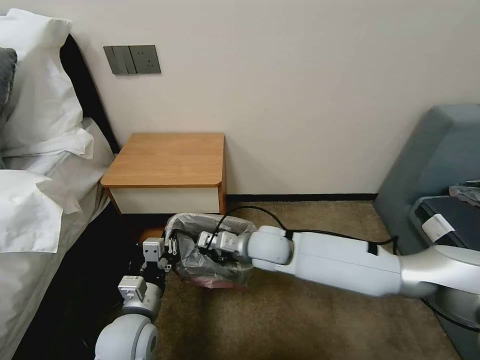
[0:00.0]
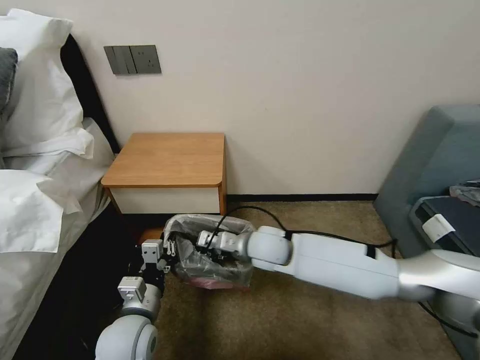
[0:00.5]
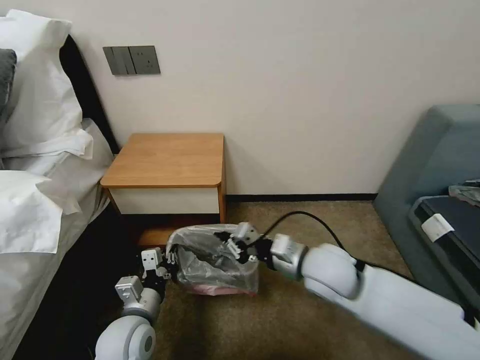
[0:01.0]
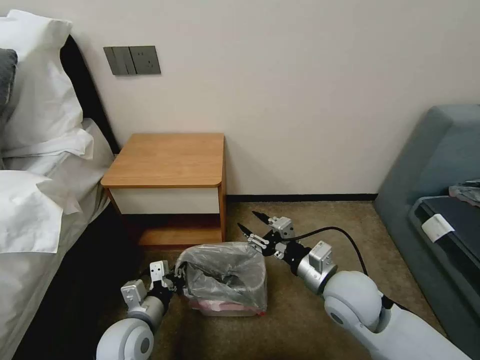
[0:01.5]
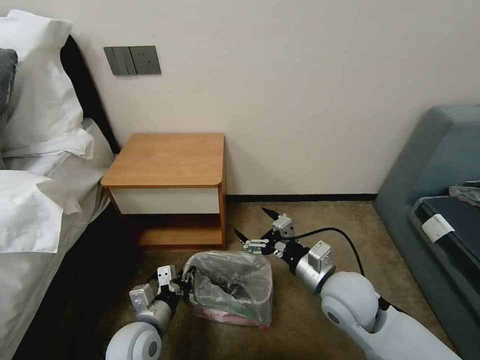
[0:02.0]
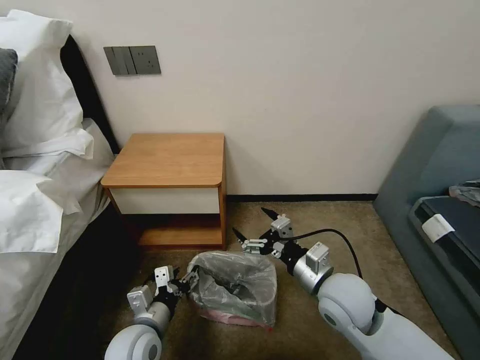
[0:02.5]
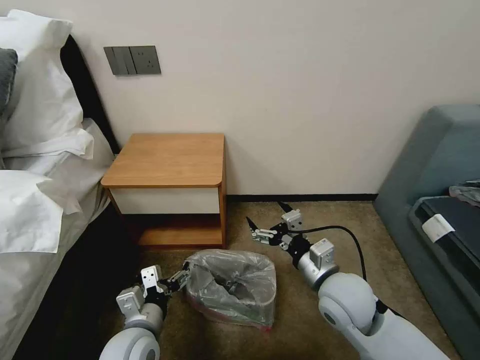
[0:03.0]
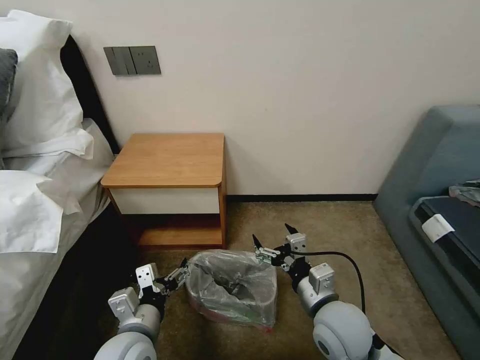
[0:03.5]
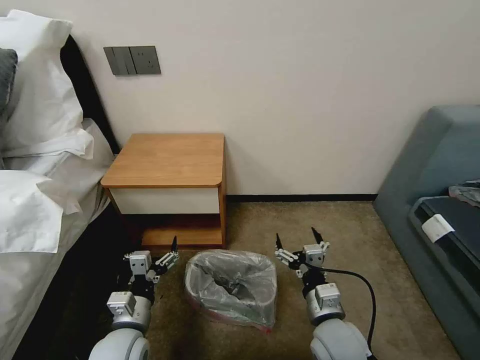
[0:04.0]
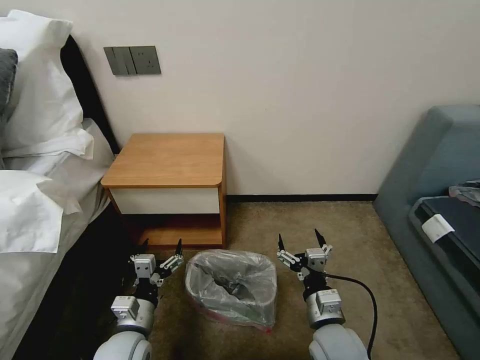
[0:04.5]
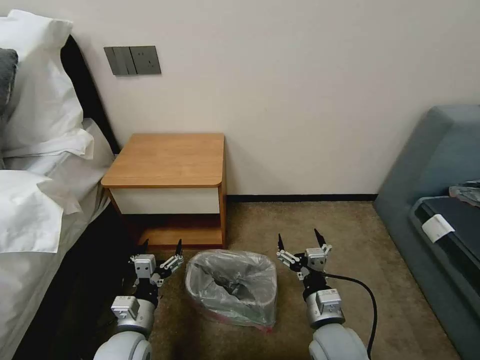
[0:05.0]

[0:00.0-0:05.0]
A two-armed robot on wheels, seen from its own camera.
Task of the whole recording: Pick up the garbage bag from the table and place it over the trash can.
0:00.0 to 0:02.5: The right gripper goes approximately 20 cm to the right and backward, and opens up. The left gripper opens.
0:02.5 to 0:05.0: The right gripper moves downward and backward, some 10 cm.

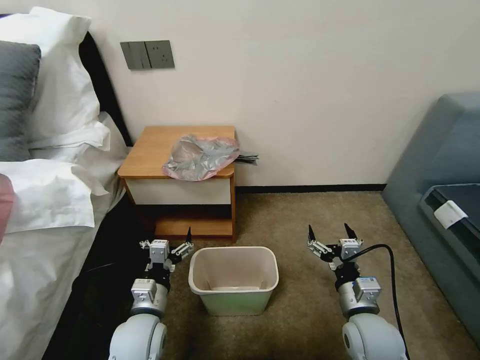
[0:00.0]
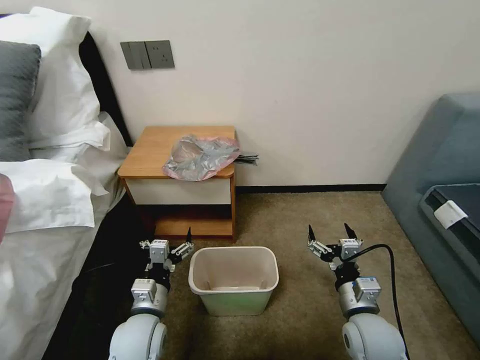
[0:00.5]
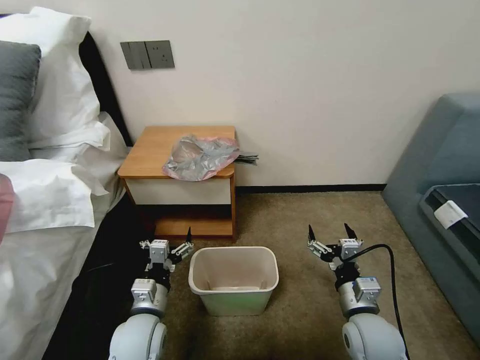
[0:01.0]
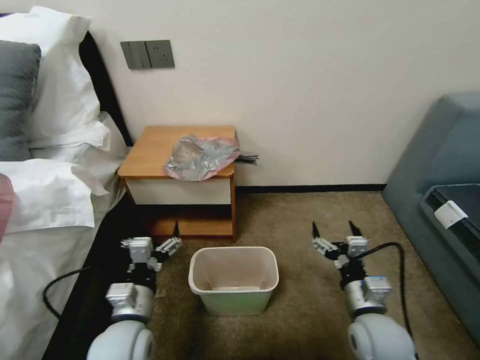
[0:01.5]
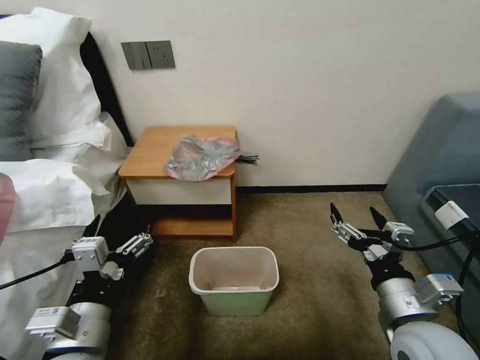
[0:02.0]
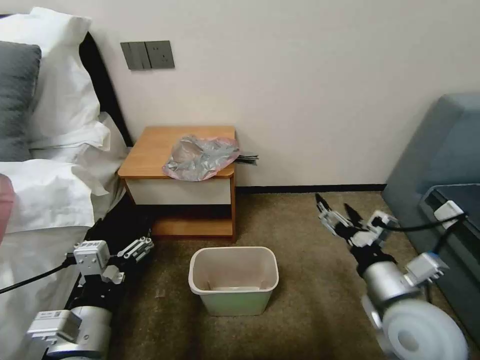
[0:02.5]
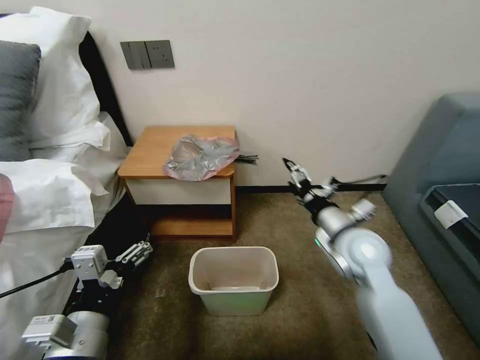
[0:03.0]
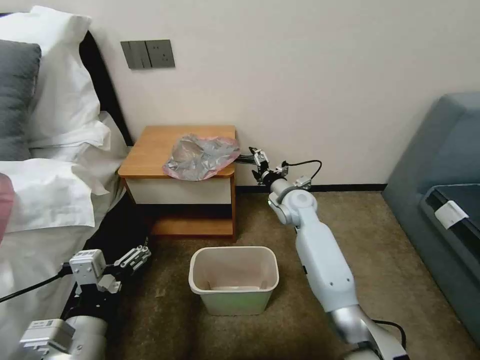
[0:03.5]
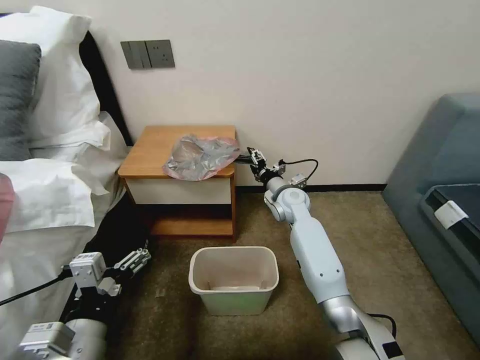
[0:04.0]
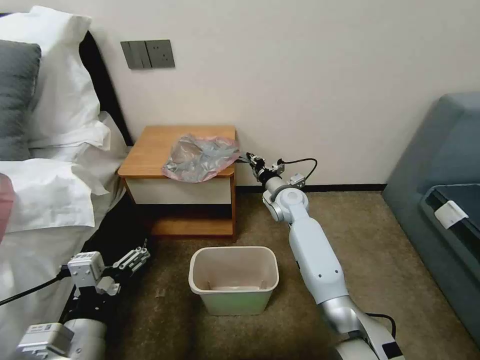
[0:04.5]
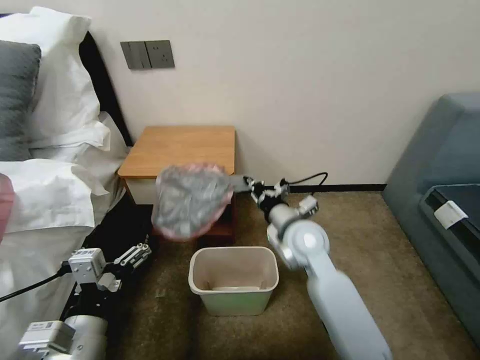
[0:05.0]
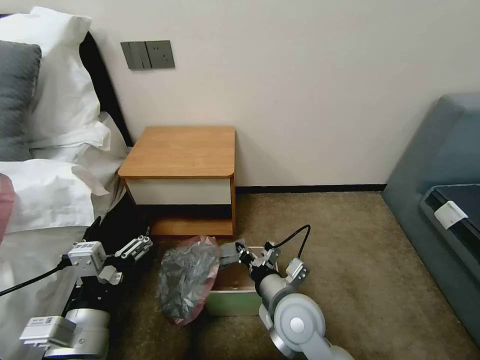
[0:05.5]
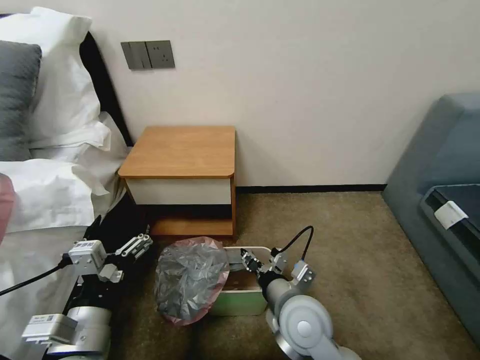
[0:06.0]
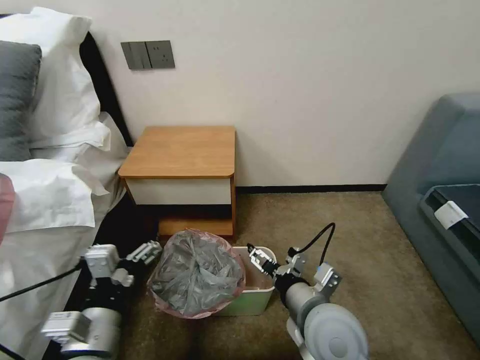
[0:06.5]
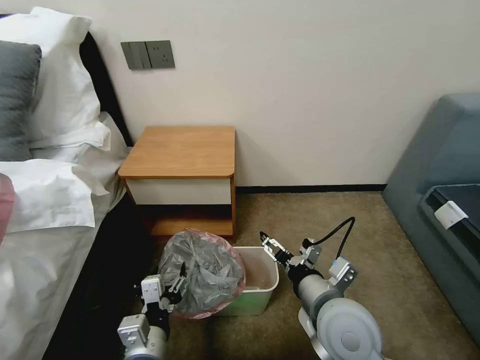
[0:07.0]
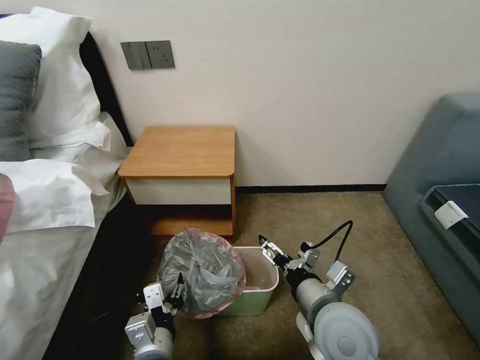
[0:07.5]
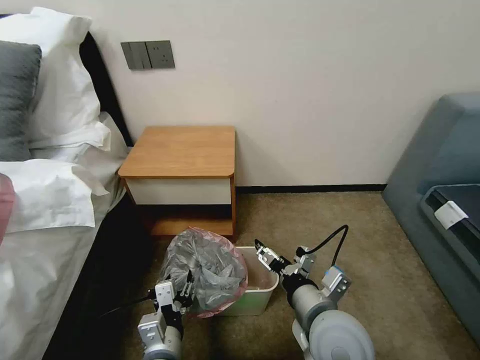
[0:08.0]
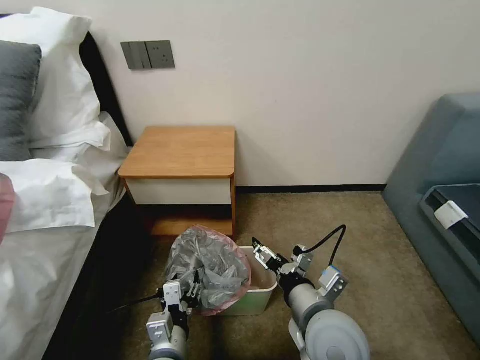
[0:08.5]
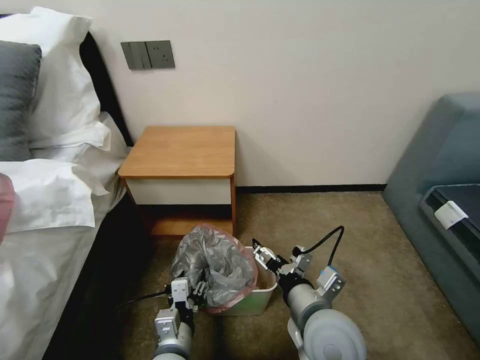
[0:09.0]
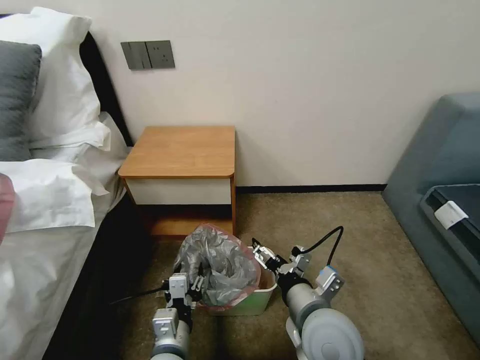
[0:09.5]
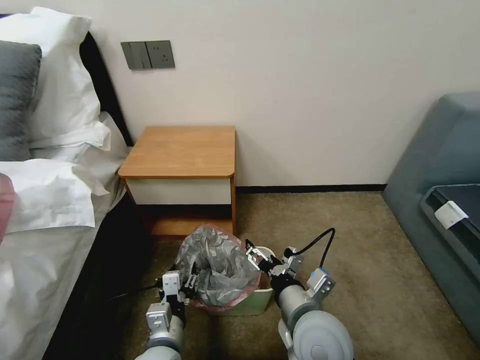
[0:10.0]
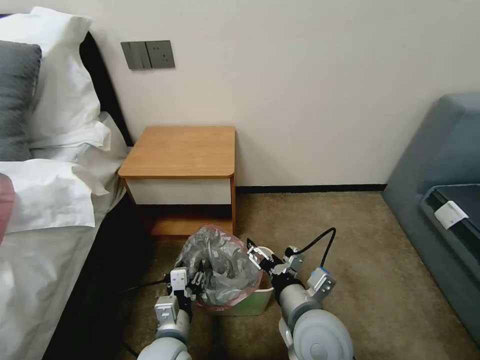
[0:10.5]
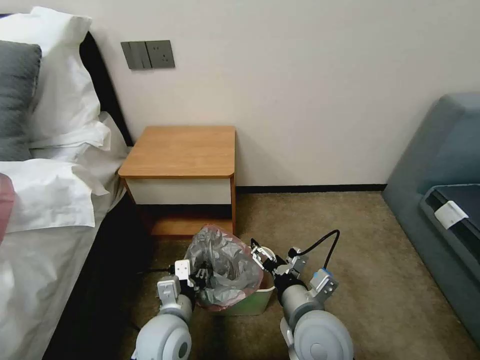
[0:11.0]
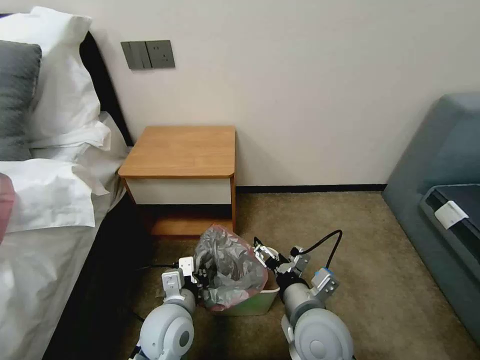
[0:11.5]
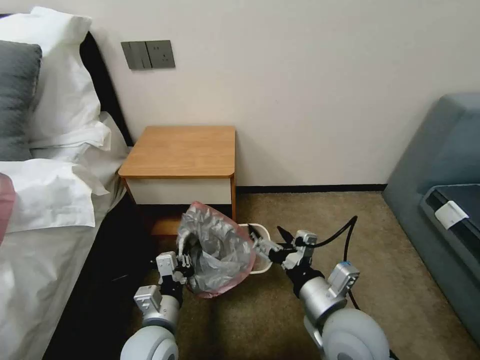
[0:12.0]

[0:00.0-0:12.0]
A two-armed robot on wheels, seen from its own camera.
Task of the whole recording: Pick up the garbage bag from the table and place it over the trash can.
0:02.0 to 0:04.0: The right gripper shifts approximately 35 cm forward.
0:04.0 to 0:06.0: The right gripper shifts roughly 30 cm backward, and closes, then reopens.
0:06.0 to 0:08.0: The left gripper heads downward and to the right, covering approximately 15 cm, and closes its fingers, while the right gripper ends up roughly 5 cm from where it was, and opens.
0:08.0 to 0:10.0: The grippers stay close to where they were, moving slightly.
0:10.0 to 0:12.0: The left gripper closes its fingers, while the right gripper ends up some 5 cm from where it was.

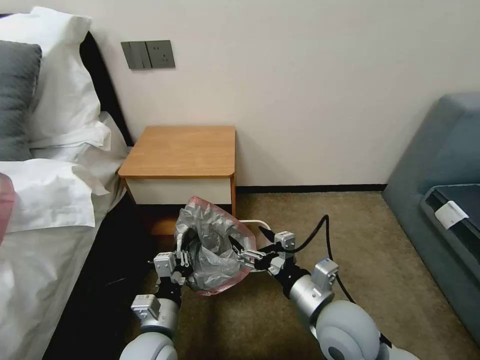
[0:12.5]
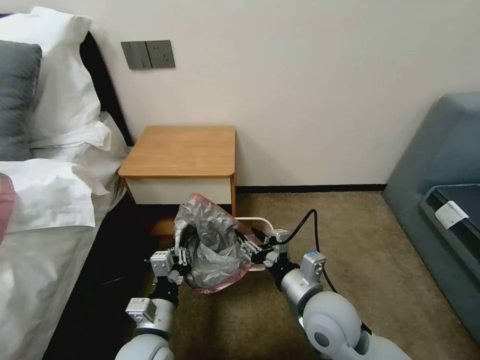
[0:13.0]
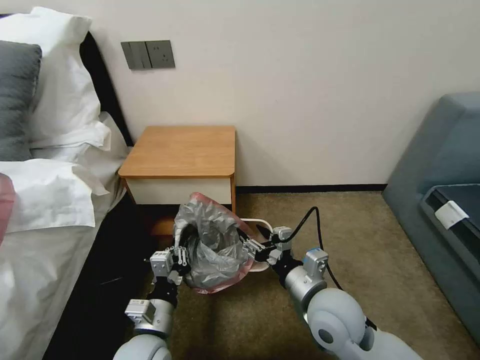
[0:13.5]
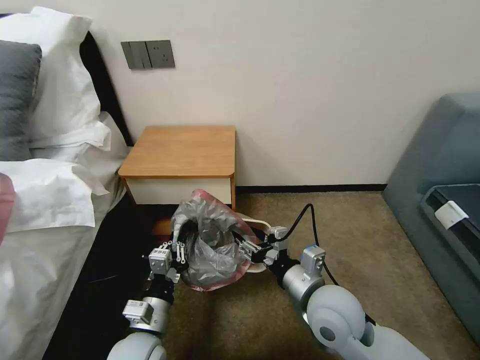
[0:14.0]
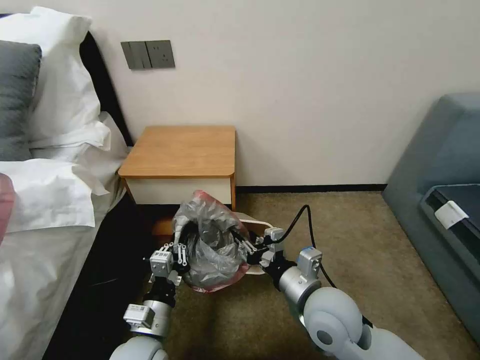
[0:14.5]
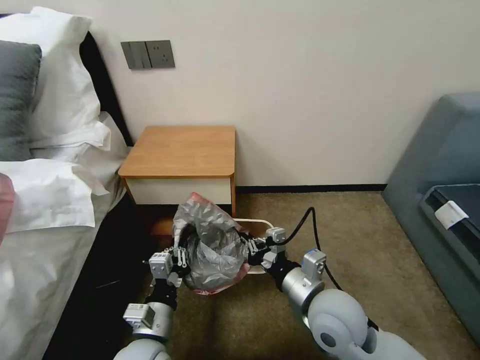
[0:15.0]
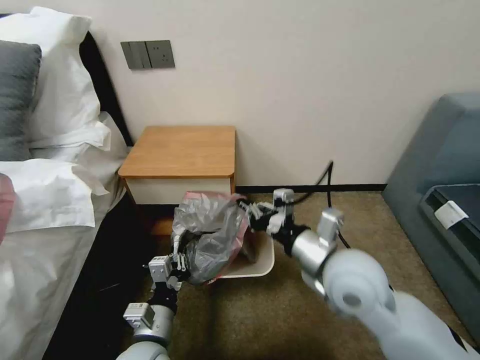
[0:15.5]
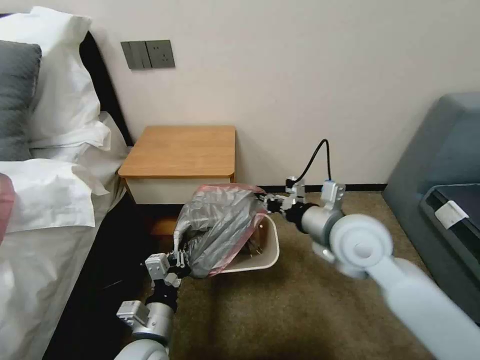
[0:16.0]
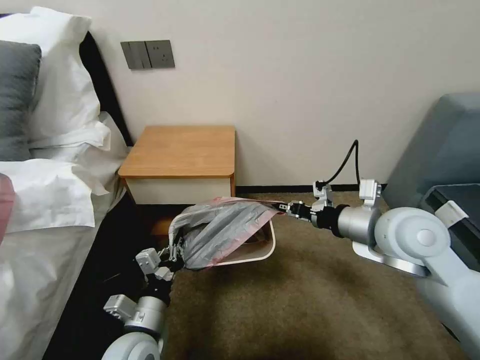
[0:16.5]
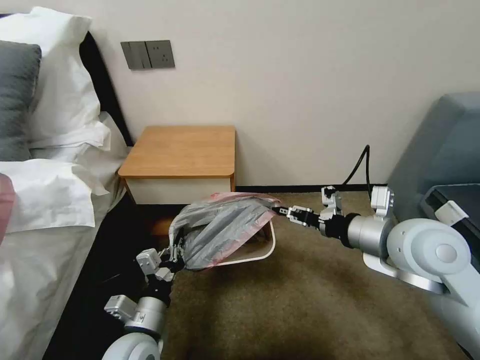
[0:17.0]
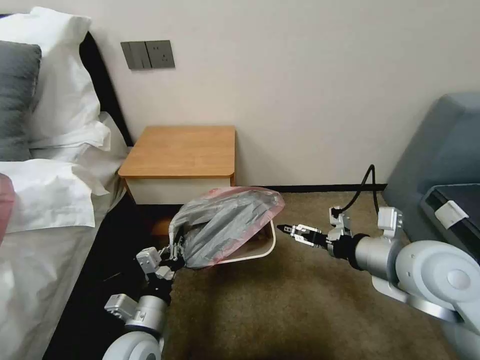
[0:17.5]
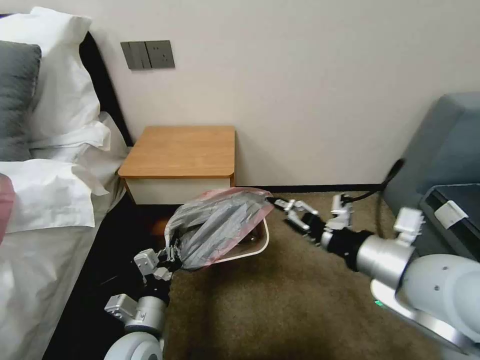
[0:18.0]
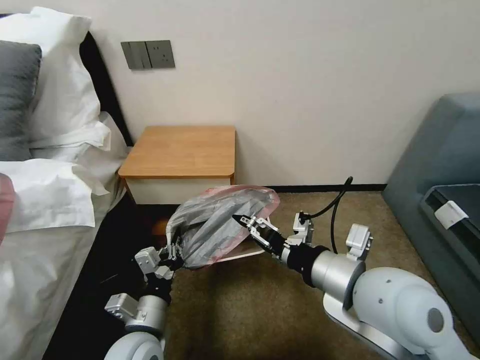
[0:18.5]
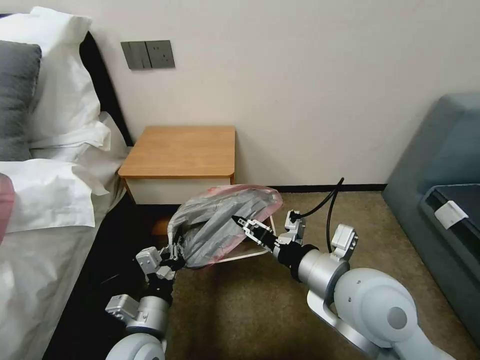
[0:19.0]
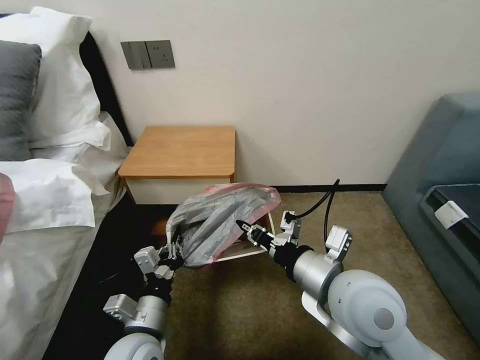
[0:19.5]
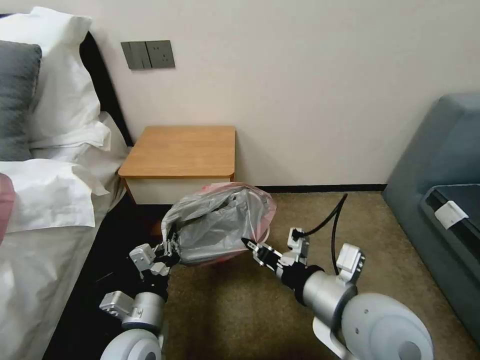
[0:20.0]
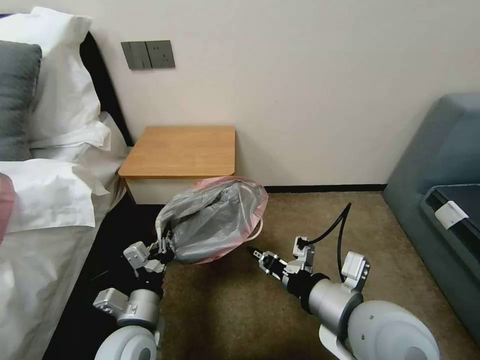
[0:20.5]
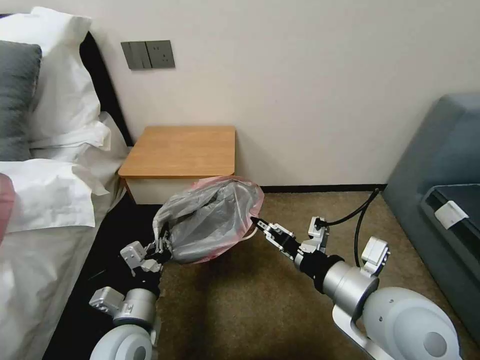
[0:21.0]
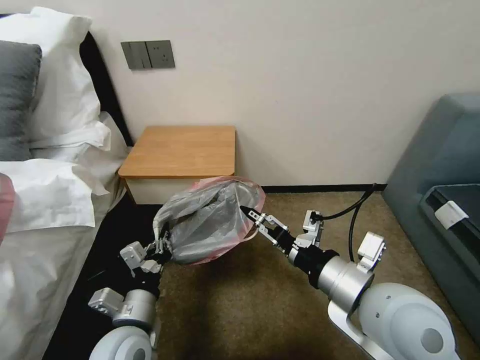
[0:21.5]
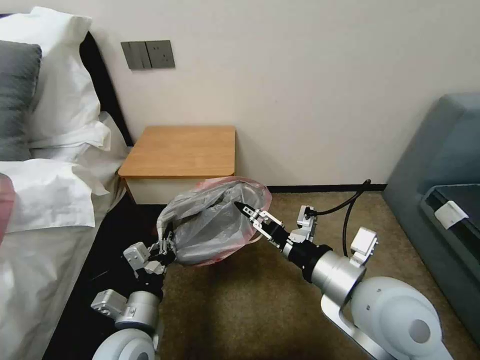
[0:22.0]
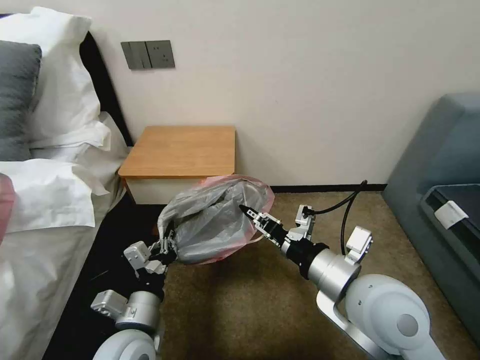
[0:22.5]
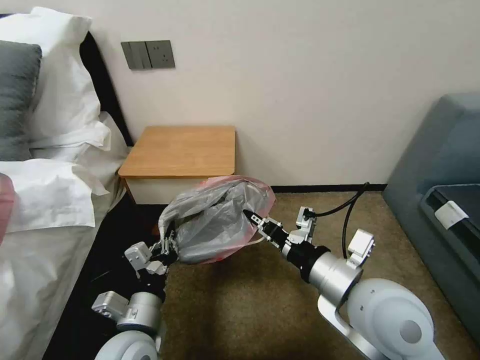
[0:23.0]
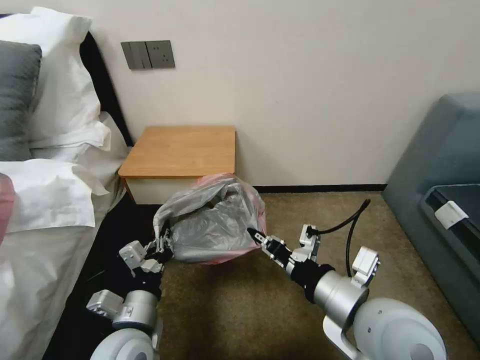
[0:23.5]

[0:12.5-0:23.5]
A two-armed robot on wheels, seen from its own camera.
Task of the whole recording: Pick up the garbage bag from the table and place it over the trash can.
0:12.5 to 0:14.5: The right gripper closes.
0:14.5 to 0:16.0: The right gripper moves upward, forward and to the right, about 15 cm, and closes up.
0:16.0 to 0:18.0: The right gripper is displaced backward by about 10 cm, and opens up.
0:18.0 to 0:20.0: The right gripper shifts approximately 10 cm to the left and downward, and closes.
0:20.0 to 0:21.5: The right gripper opens up.
0:21.5 to 0:23.5: The right gripper closes up.
